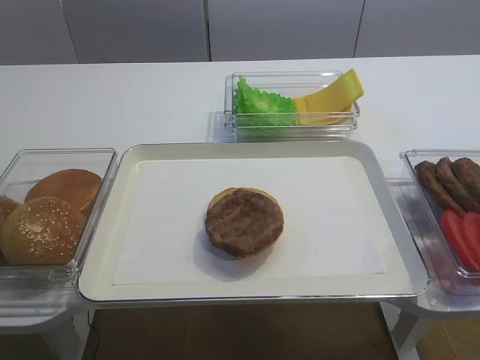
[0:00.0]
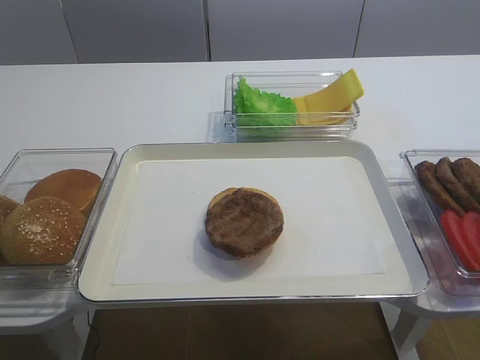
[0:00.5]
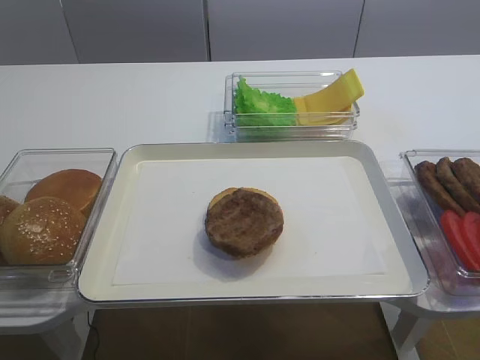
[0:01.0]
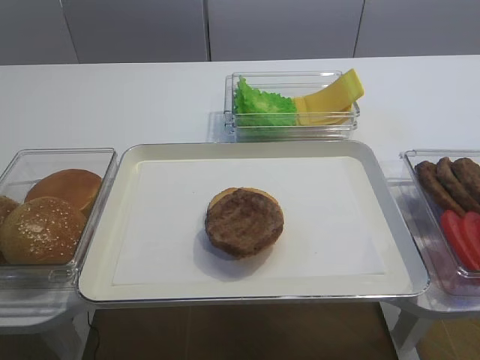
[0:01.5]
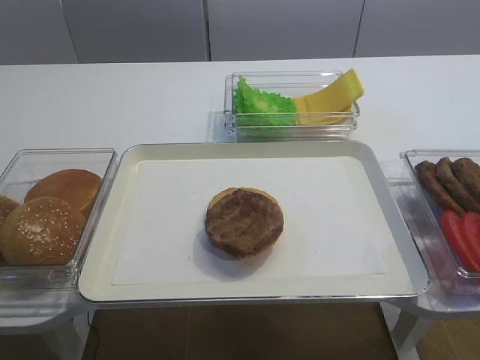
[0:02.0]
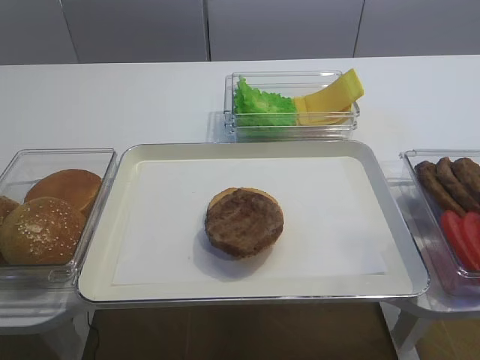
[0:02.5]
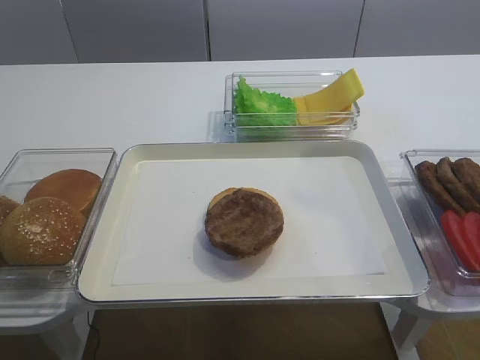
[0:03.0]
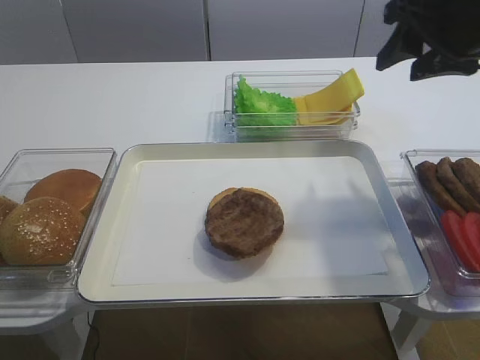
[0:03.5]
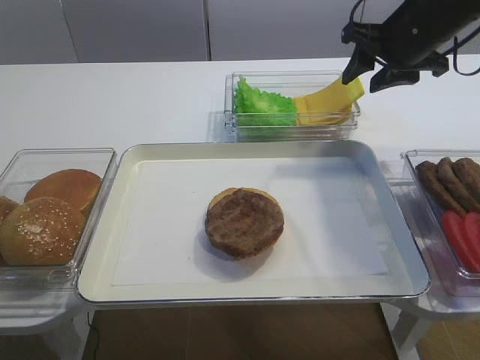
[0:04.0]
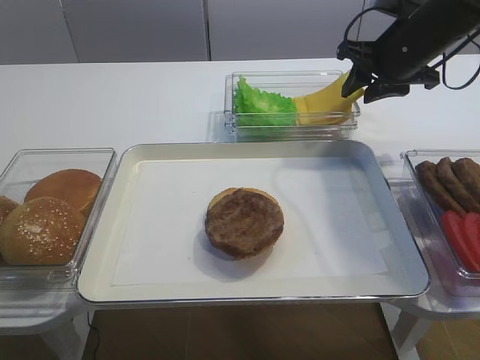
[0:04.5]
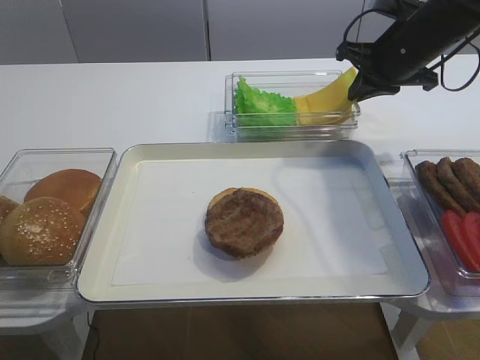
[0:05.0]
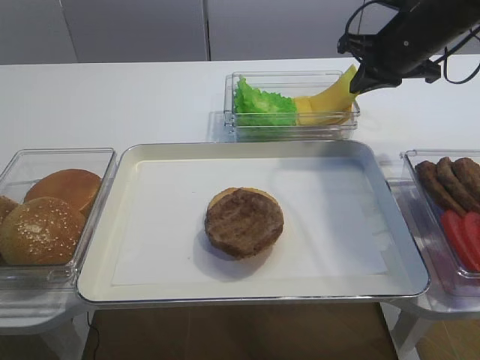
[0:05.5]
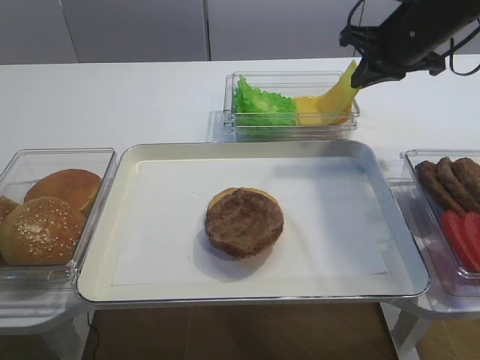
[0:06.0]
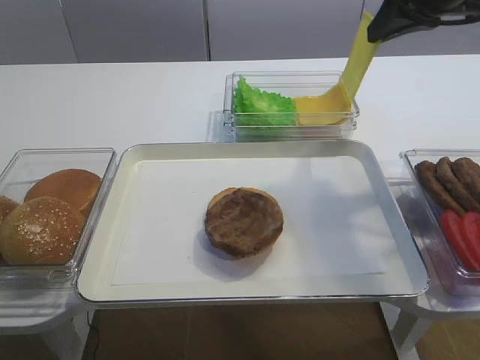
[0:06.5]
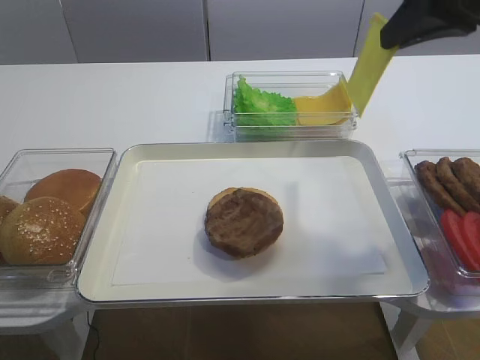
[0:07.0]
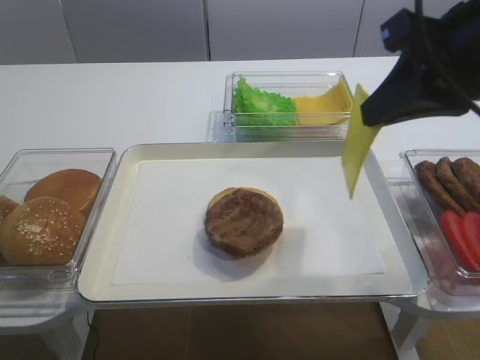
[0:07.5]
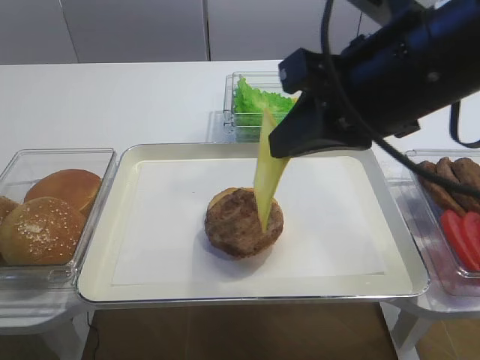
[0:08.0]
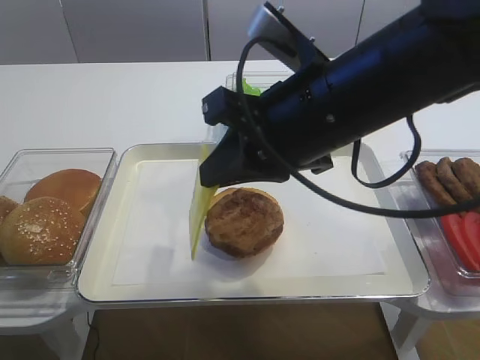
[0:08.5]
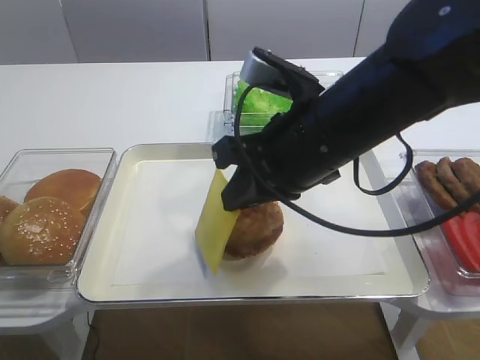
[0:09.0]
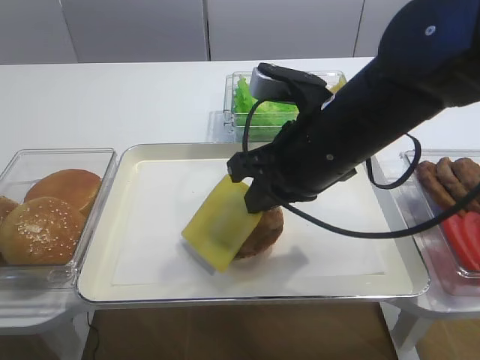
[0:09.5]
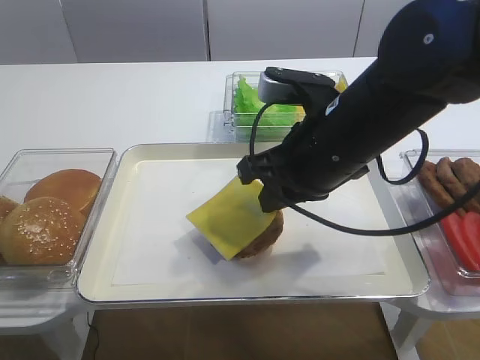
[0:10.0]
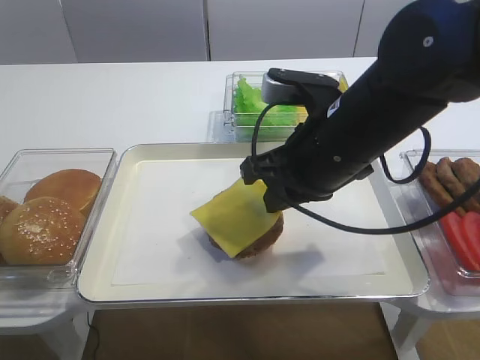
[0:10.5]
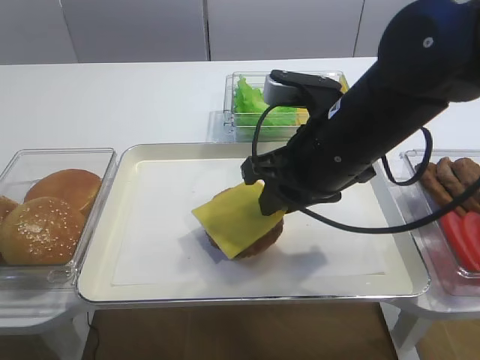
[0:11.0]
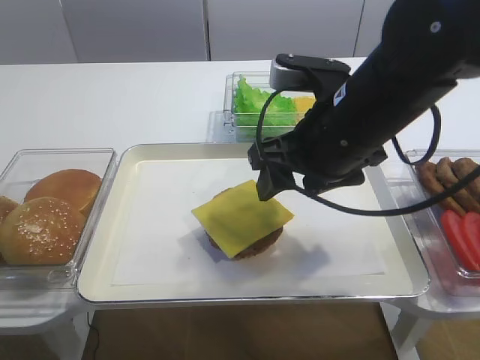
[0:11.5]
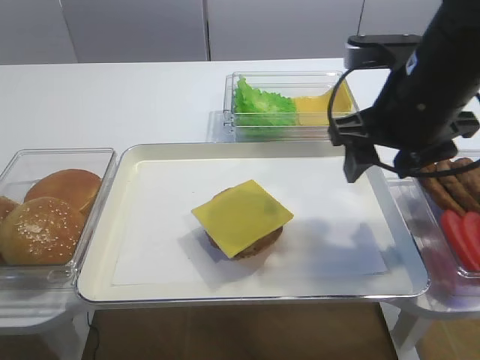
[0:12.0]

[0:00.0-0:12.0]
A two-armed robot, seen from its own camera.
Step, 0:00.0 to 0:06.5: Pick up the cheese slice with the right gripper.
Step, 0:07.0 to 0:11.0: Place the cheese slice on the cutlet with the right gripper.
0:02.0 to 0:04.0: The right gripper travels forward by some 40 cm.
0:04.0 to 0:06.0: The right gripper closes.
0:06.0 to 0:08.0: The right gripper heads backward and to the left, covering approximately 20 cm.
0:08.0 to 0:10.0: The right gripper shifts about 10 cm downward.
0:10.0 to 0:12.0: The right gripper is displaced to the right by approximately 5 cm, and opens up.

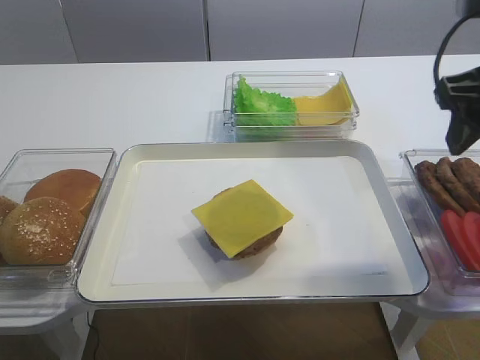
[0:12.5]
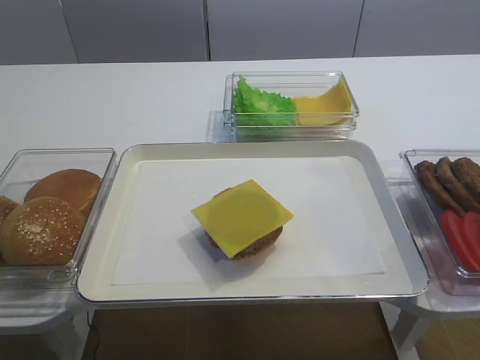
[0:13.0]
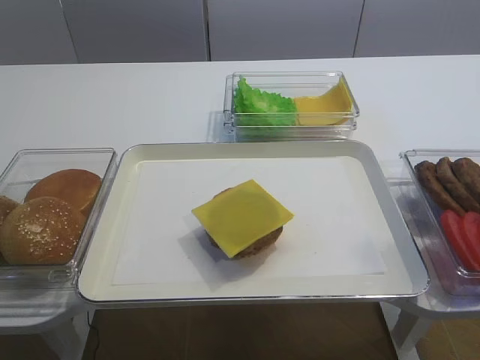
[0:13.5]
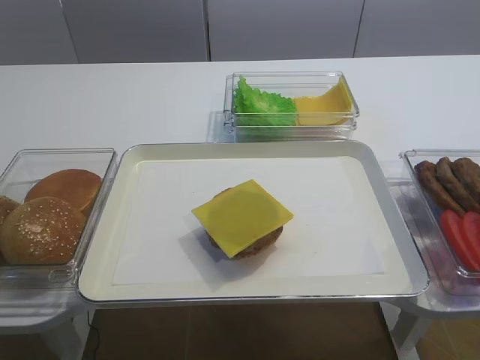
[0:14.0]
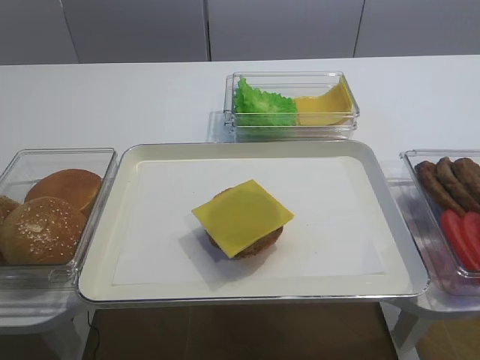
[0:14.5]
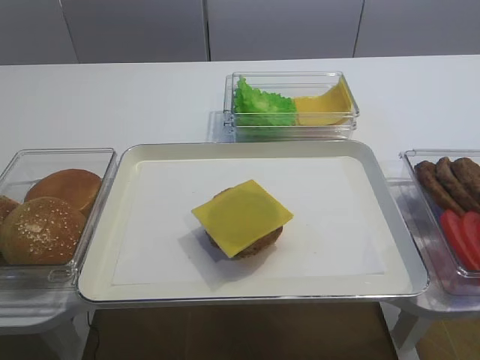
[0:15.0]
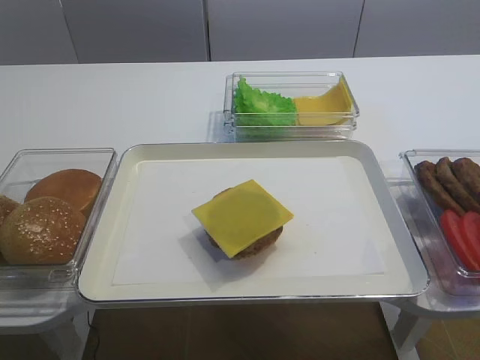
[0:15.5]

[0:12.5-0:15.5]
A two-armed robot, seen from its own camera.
0:12.5 to 0:14.0: The right gripper shifts approximately 25 cm backward.

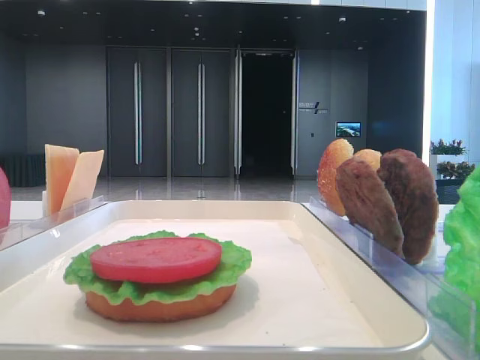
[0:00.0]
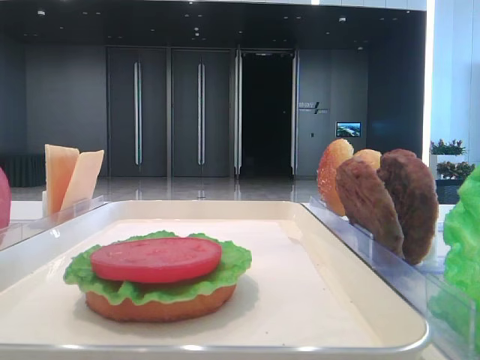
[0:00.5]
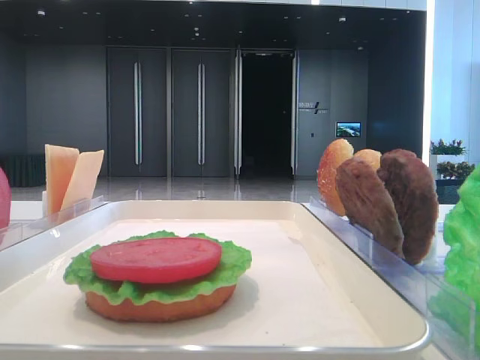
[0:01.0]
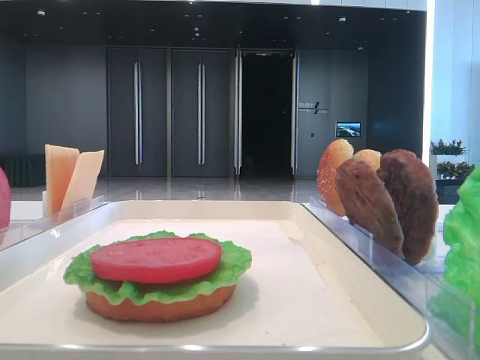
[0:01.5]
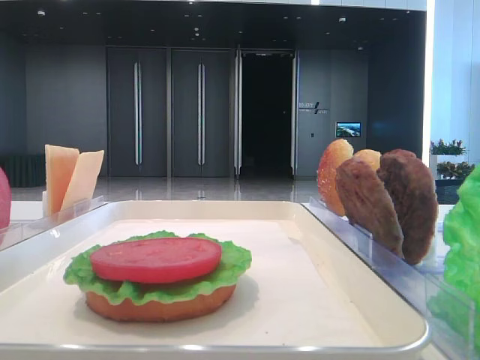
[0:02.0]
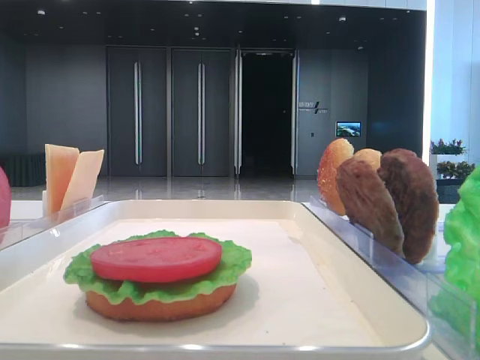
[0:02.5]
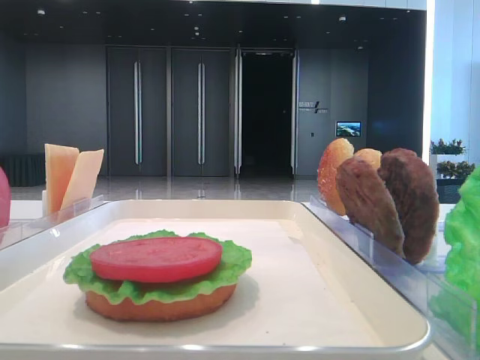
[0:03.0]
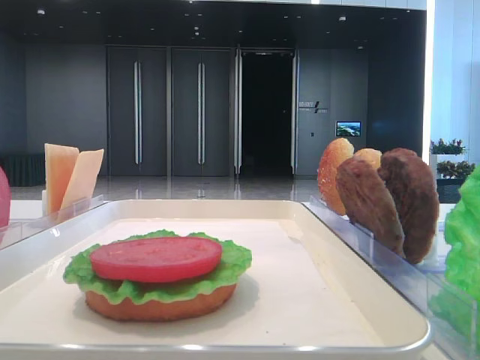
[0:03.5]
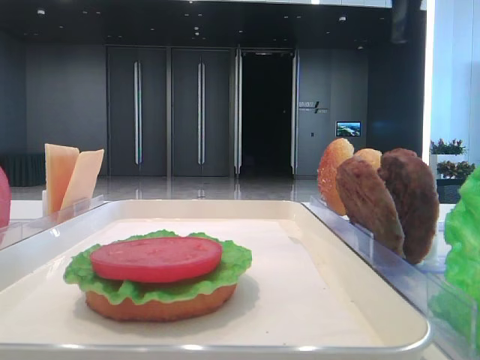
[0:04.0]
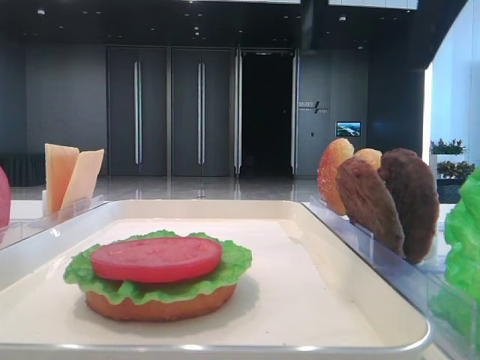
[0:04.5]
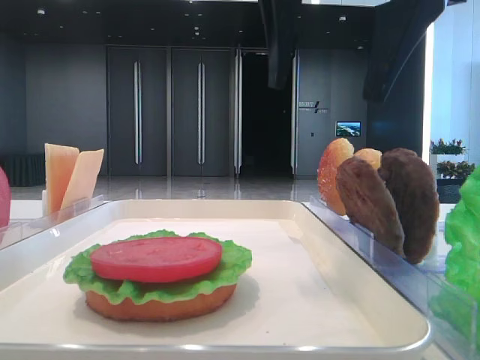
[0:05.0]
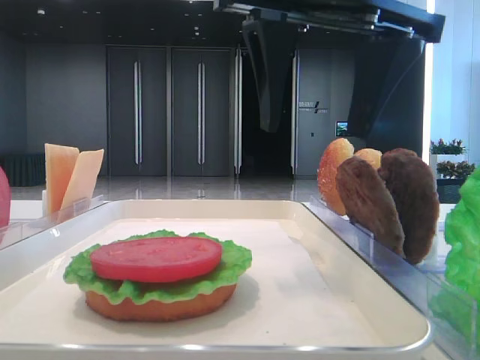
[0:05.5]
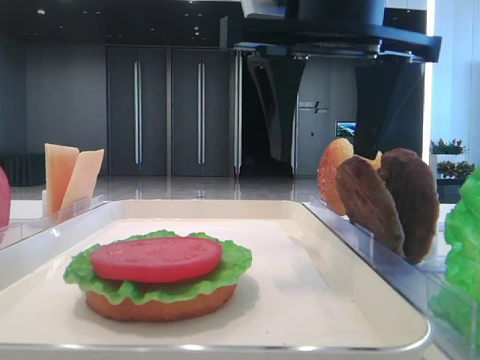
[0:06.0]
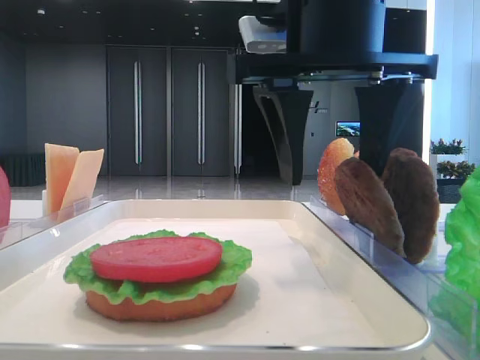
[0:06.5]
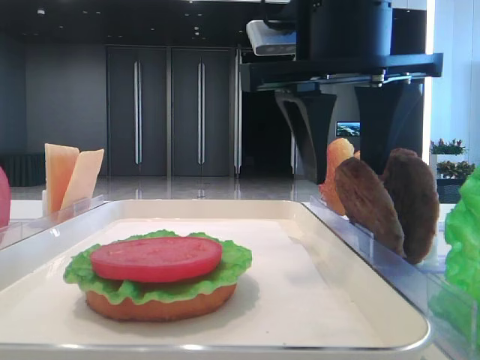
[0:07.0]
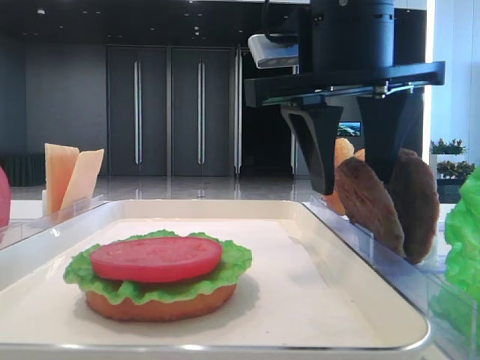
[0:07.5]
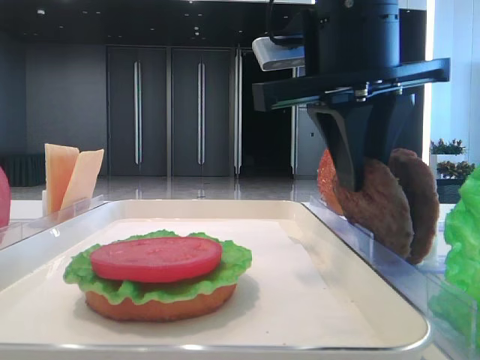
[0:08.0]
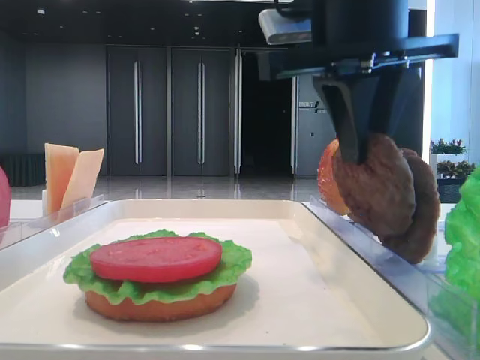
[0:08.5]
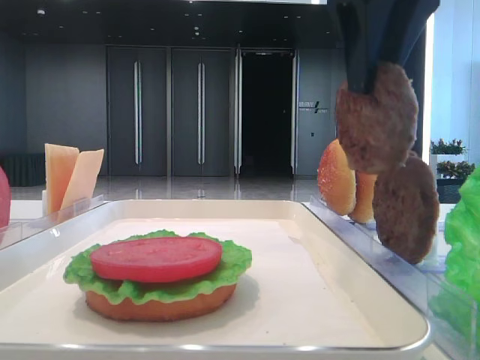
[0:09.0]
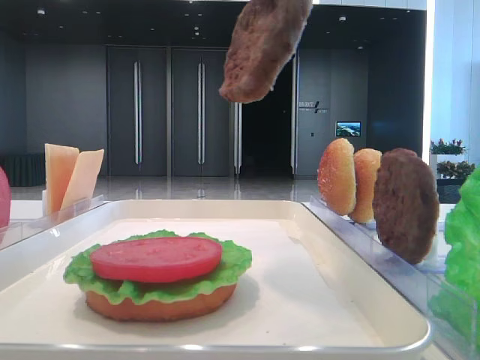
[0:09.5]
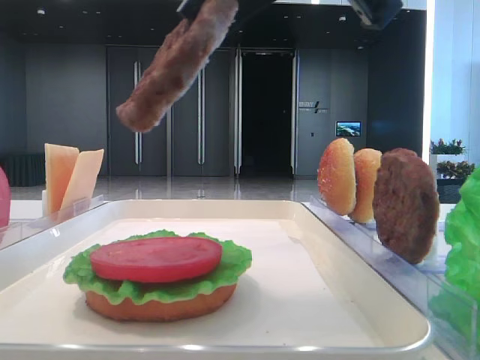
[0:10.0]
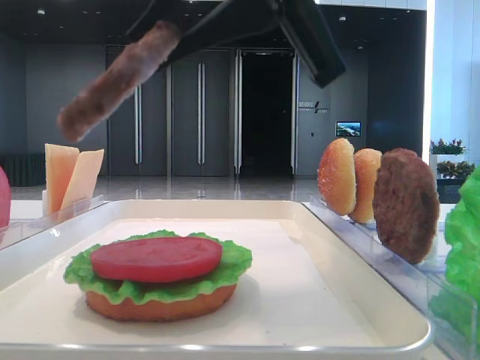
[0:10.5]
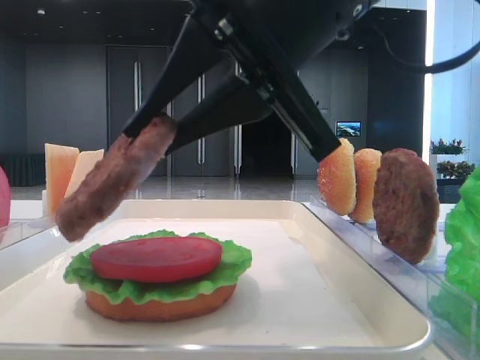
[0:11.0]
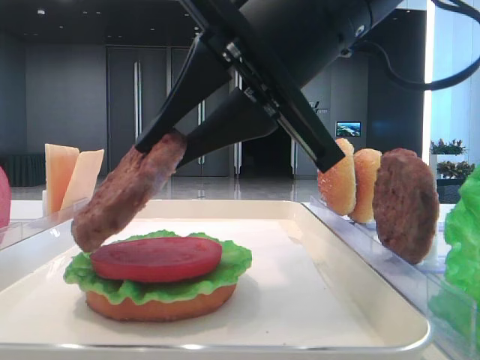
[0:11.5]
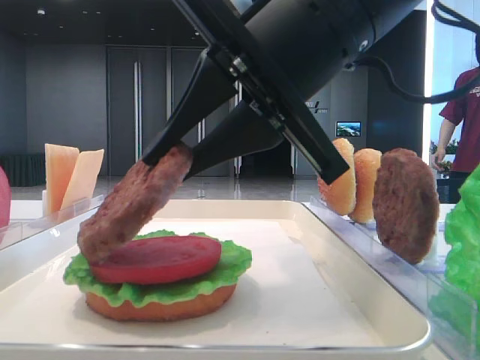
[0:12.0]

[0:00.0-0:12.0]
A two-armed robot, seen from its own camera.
Step, 0:00.0 to 0:08.0: Grab the patty with the right hand.
0:02.0 to 0:04.0: The right gripper shifts some 25 cm forward and to the left.
0:04.0 to 0:06.0: The left gripper closes its fingers; the right gripper moves to the left and downward, about 10 cm.
0:06.0 to 0:08.0: The right gripper closes its fingers.
0:08.0 to 0:10.0: The right gripper goes about 10 cm backward and upward.
0:10.0 to 0:12.0: The right gripper moves downward, some 10 cm.
